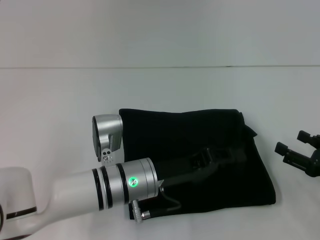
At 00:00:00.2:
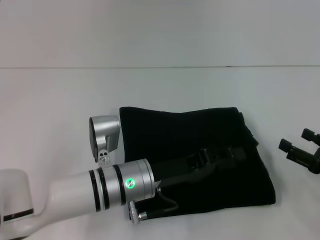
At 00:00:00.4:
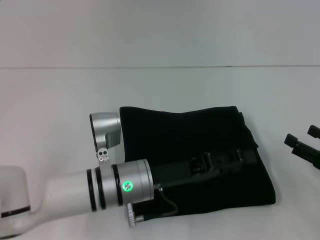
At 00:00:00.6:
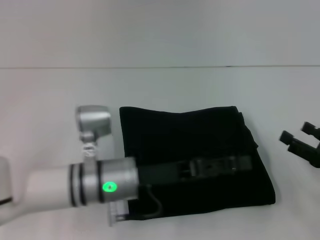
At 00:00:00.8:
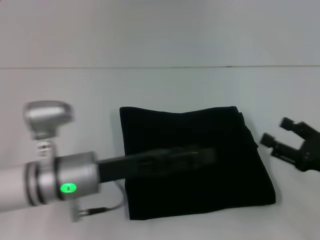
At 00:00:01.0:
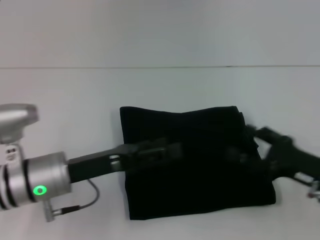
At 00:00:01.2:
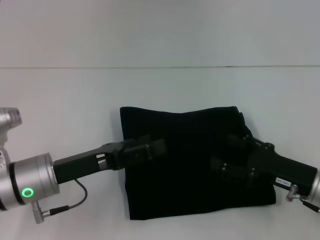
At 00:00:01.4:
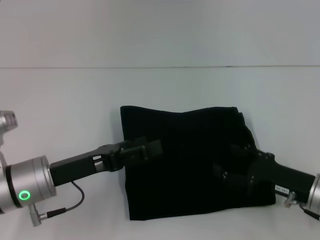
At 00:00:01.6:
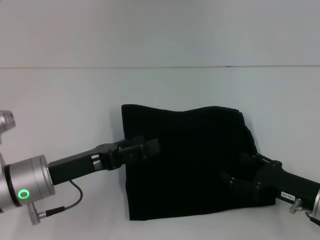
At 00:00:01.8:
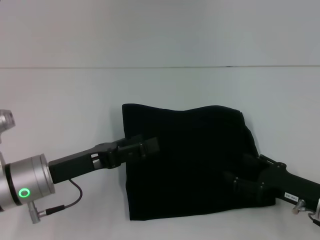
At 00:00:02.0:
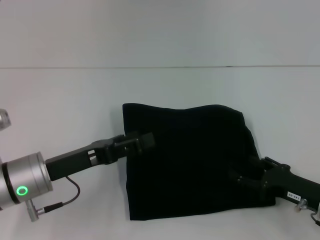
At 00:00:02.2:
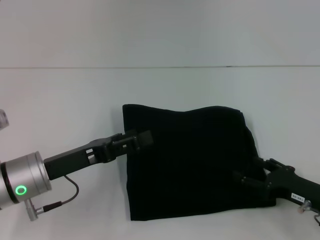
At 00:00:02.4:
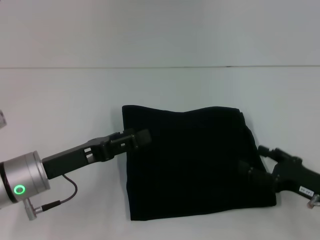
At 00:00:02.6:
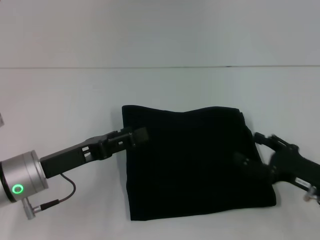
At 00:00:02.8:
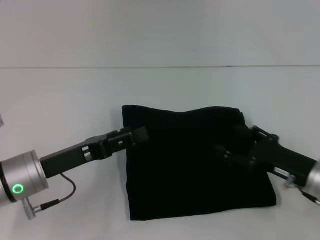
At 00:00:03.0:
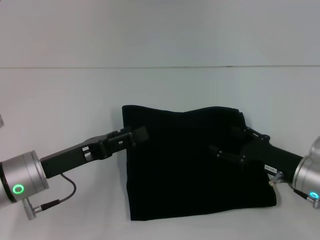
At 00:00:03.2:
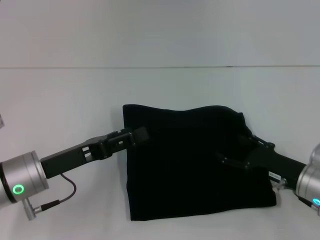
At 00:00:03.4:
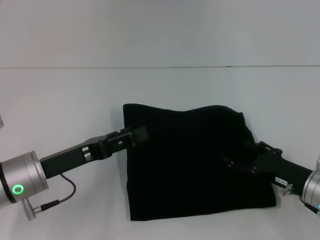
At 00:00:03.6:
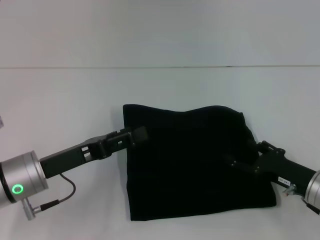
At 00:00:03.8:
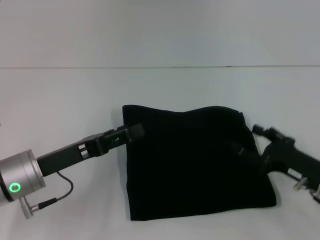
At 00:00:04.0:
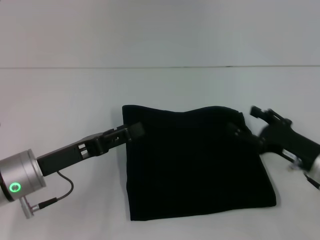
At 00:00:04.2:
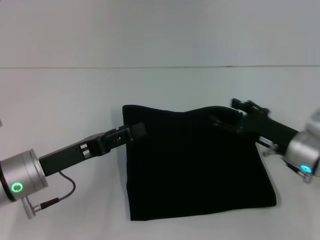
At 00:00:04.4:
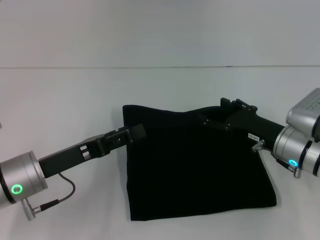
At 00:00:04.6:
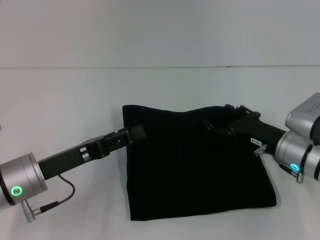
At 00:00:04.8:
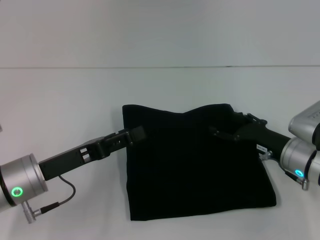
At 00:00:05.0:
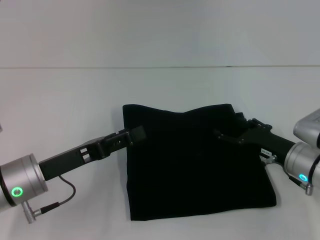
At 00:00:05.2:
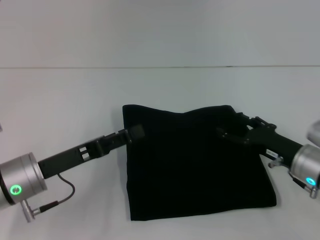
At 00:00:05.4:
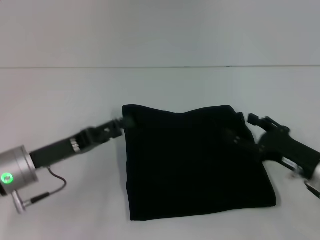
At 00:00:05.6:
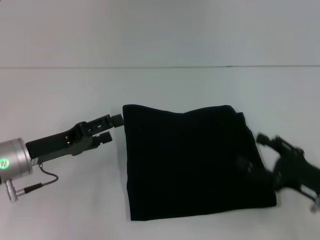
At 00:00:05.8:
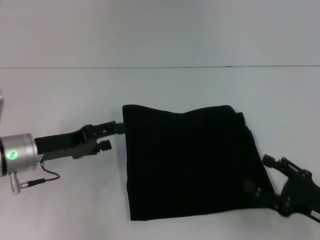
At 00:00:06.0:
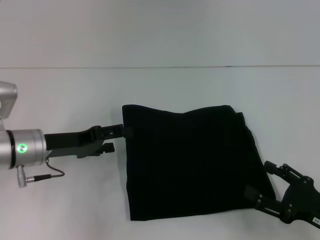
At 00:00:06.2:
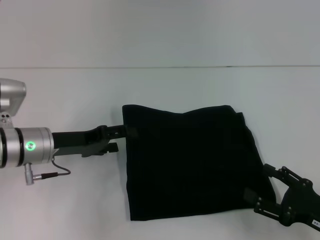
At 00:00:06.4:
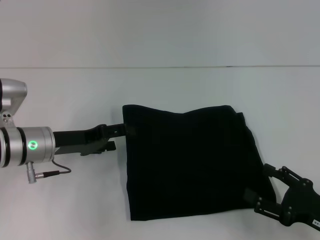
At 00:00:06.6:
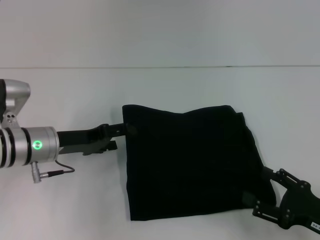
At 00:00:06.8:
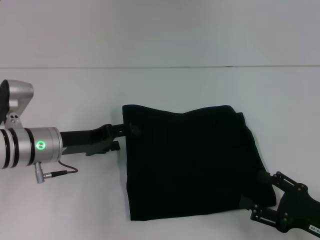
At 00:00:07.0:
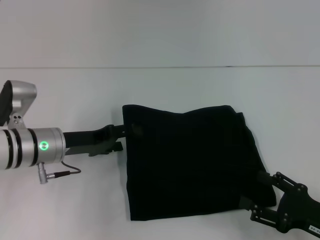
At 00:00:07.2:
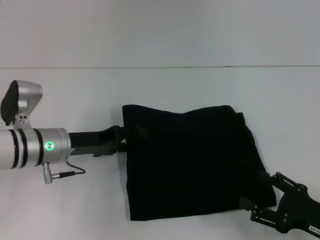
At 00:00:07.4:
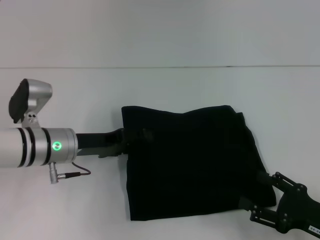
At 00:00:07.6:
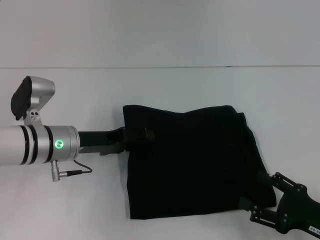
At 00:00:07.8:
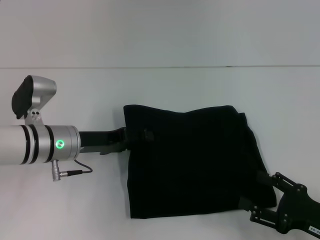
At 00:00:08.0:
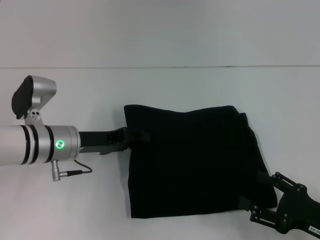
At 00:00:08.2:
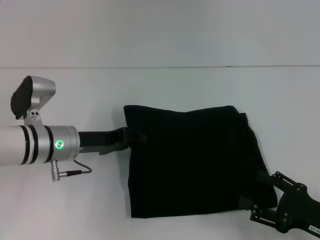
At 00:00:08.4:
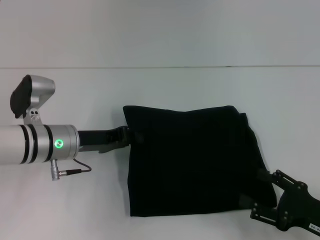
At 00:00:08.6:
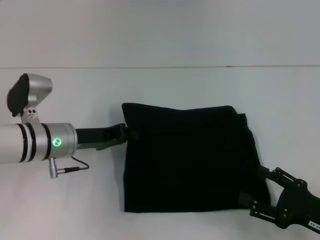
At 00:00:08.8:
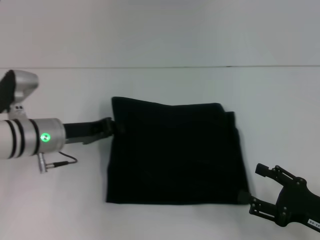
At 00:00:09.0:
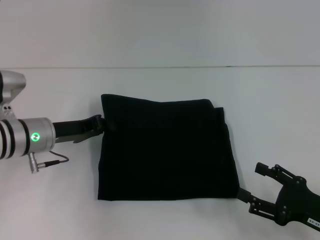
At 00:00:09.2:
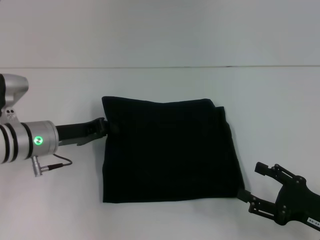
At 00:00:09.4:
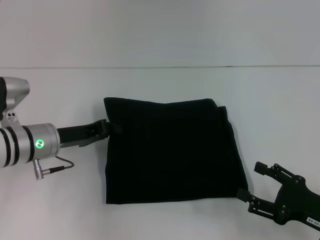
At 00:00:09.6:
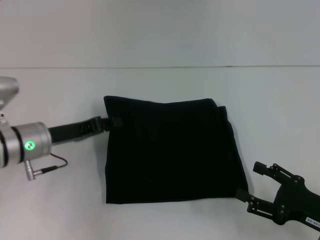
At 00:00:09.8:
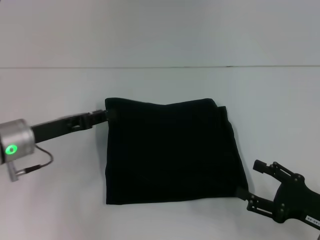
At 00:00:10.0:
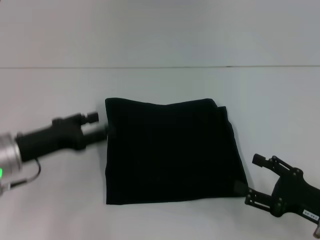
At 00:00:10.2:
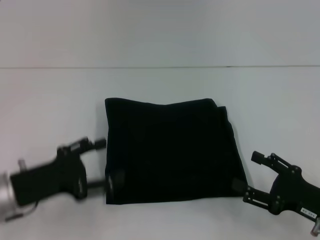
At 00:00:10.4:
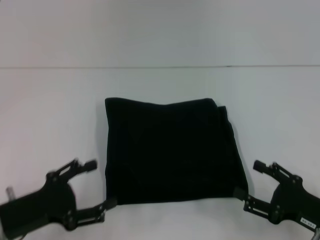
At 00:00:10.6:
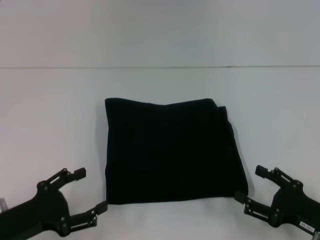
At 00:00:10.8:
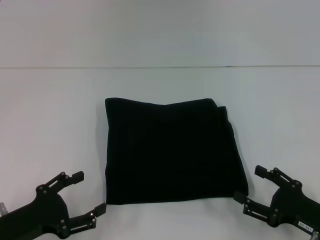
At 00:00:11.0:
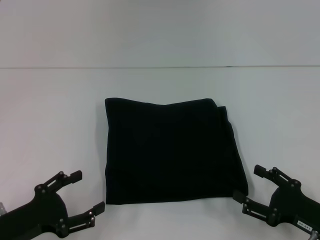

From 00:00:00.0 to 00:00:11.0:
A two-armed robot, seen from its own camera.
From 00:00:00.0 to 00:00:01.6: The left gripper heads to the left, covering some 15 cm, and opens, while the right gripper moves to the left, some 5 cm.
From 00:00:01.6 to 00:00:03.2: The grippers move only a little.
From 00:00:04.8 to 00:00:06.2: The left gripper shifts some 5 cm forward. The right gripper heads backward and to the right, covering about 15 cm.
From 00:00:06.2 to 00:00:07.8: There are only small adjustments of the grippers.
From 00:00:07.8 to 00:00:09.4: The left gripper closes its fingers.
From 00:00:09.4 to 00:00:11.0: The left gripper shifts approximately 15 cm backward, and opens.

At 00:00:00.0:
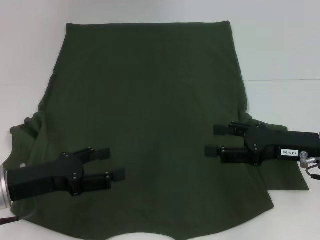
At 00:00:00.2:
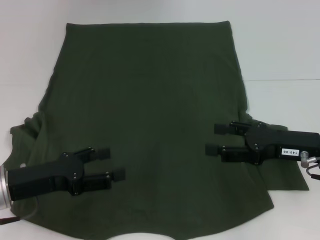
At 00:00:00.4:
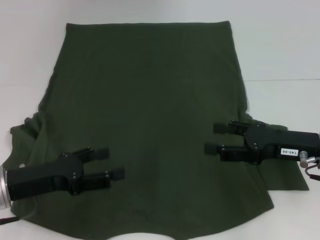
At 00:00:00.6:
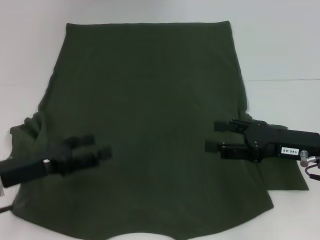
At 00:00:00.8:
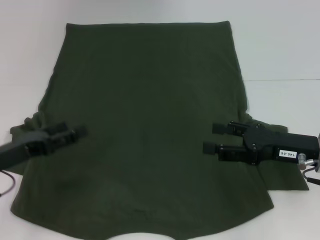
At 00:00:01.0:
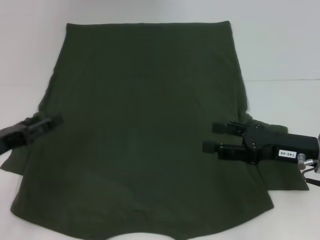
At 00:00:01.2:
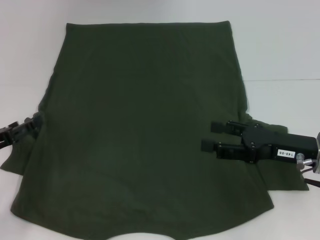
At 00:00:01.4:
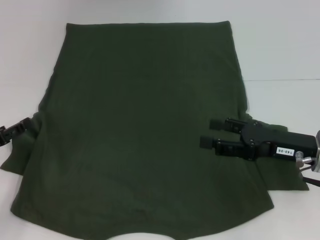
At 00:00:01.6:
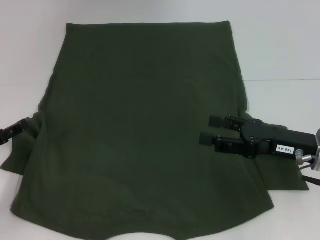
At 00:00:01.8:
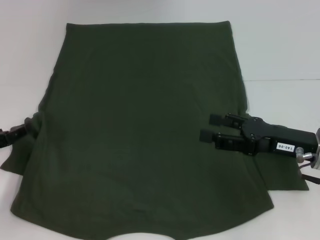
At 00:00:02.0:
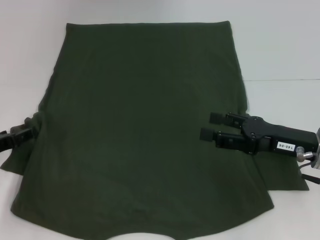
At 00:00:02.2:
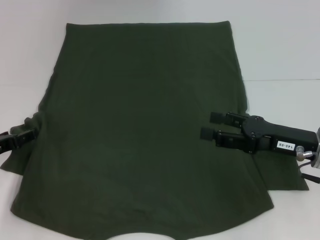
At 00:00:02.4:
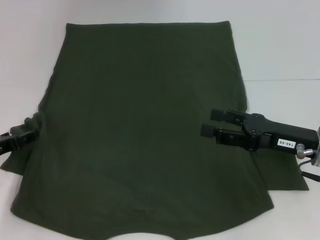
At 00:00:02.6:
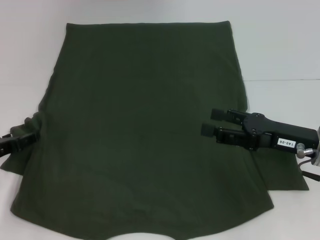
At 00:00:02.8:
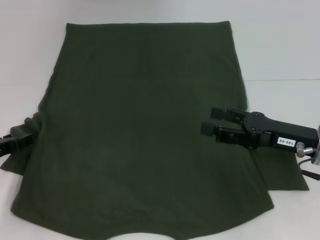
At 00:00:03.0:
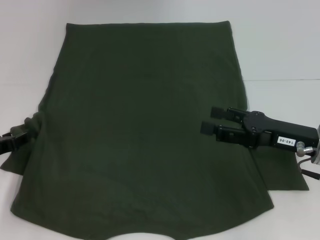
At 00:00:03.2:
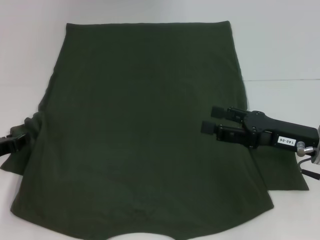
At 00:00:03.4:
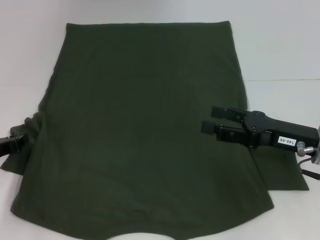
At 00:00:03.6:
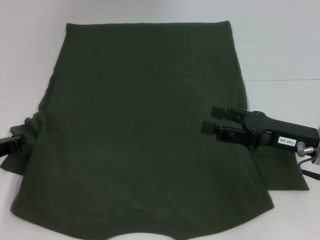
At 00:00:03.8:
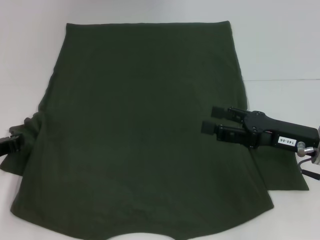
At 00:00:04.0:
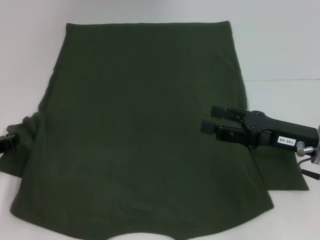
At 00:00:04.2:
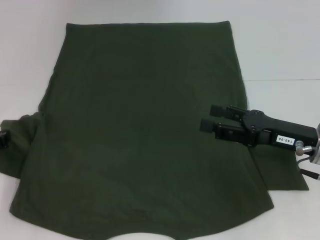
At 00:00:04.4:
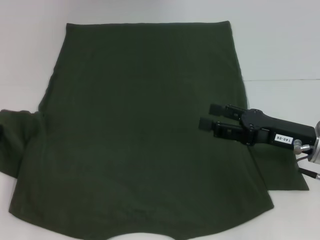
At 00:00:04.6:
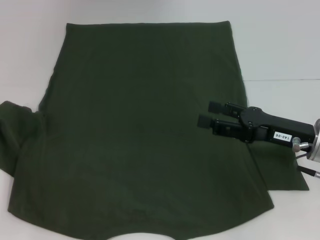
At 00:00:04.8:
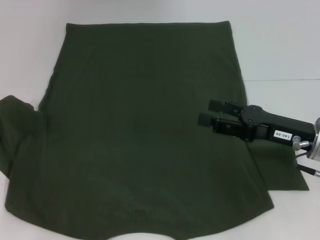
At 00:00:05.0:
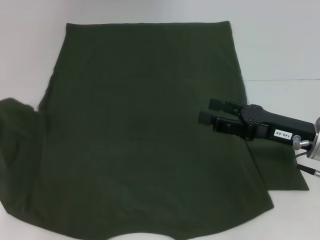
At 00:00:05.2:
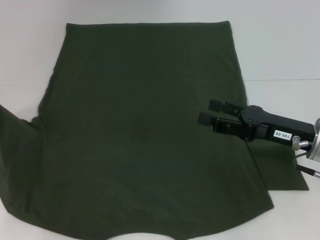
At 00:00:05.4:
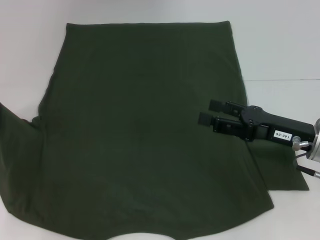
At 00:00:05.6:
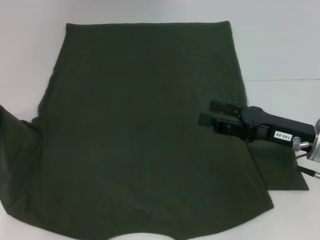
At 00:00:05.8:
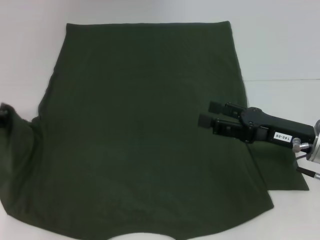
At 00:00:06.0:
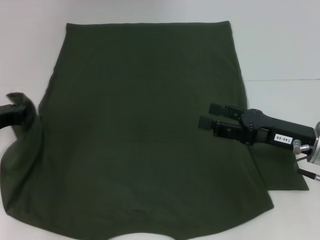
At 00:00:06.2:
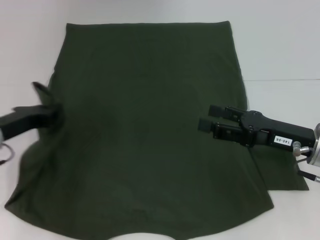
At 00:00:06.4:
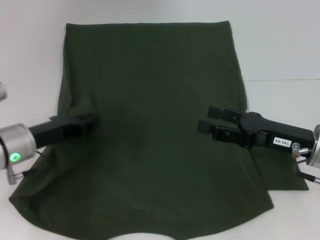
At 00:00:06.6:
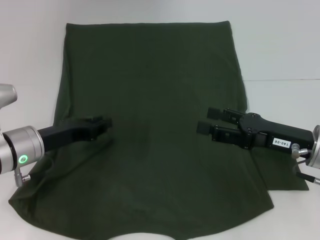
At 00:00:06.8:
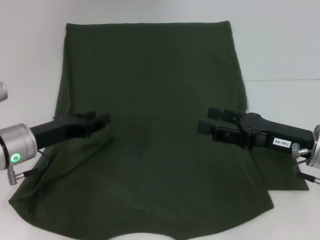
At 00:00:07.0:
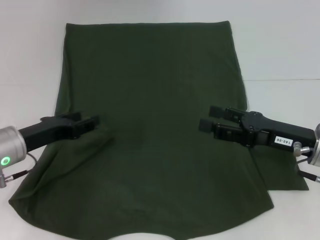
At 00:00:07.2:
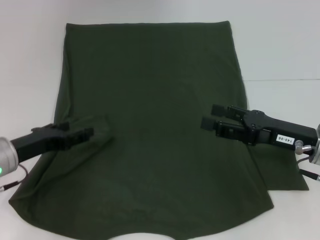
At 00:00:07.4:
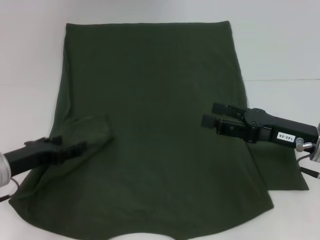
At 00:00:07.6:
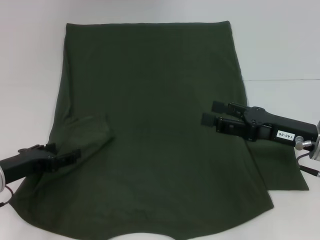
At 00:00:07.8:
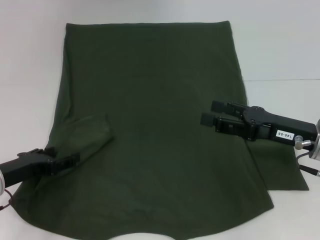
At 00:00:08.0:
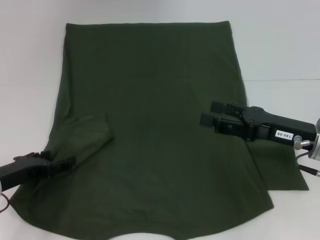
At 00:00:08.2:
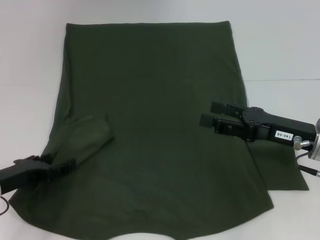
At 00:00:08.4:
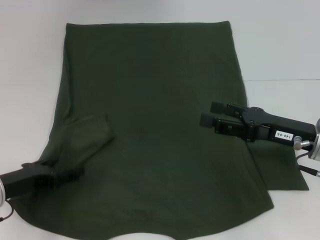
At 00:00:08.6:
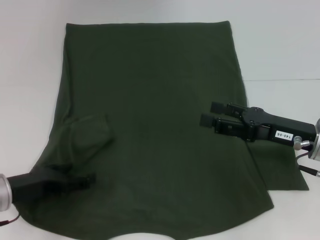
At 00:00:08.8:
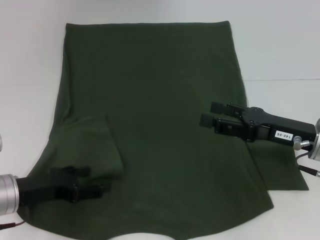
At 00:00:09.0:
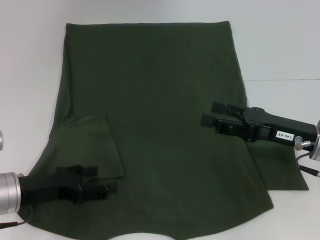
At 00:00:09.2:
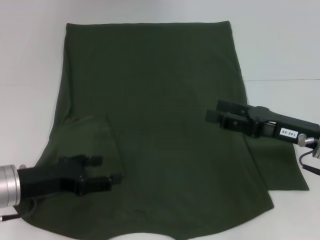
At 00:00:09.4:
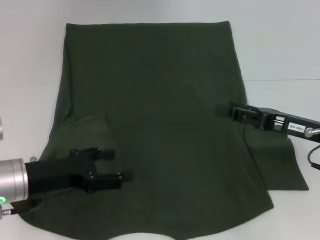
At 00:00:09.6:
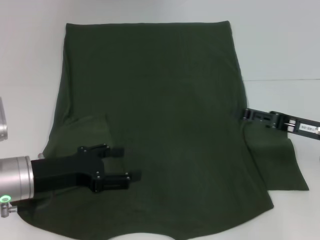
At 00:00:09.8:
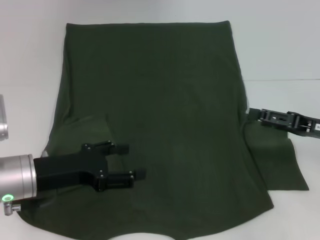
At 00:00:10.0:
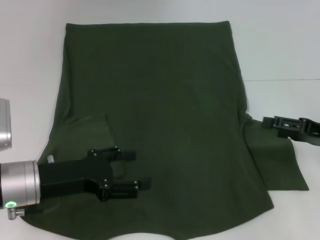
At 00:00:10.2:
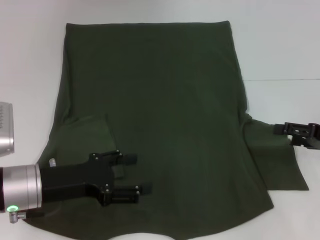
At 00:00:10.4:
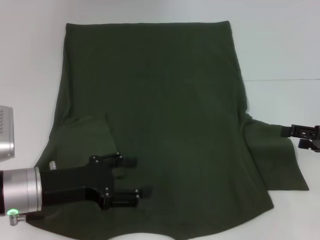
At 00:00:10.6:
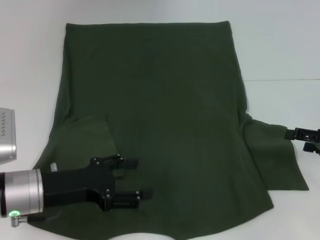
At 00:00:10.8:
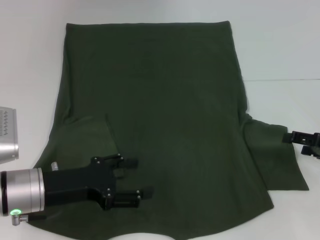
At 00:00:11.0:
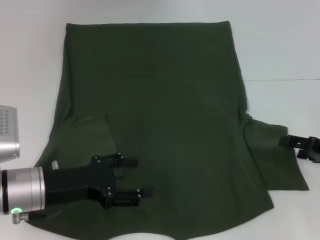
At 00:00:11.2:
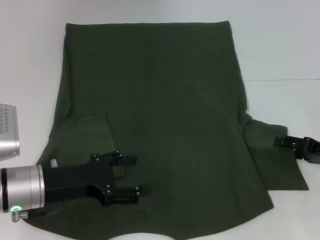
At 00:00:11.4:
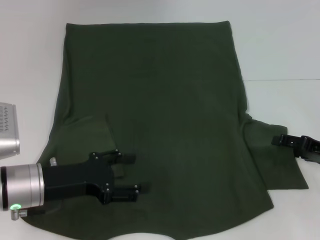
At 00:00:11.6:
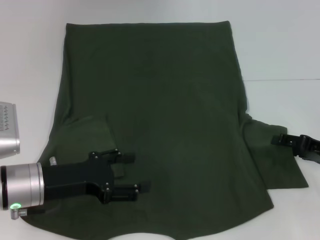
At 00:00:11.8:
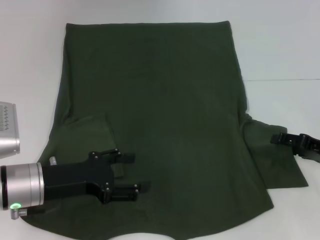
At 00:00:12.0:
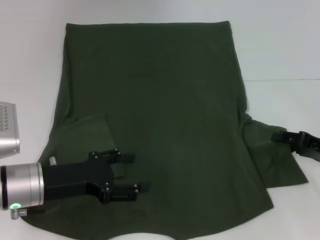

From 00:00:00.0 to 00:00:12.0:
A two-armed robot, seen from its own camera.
Step, from 00:00:00.0 to 00:00:07.4: Fold the bottom left sleeve with your left hand.
From 00:00:00.0 to 00:00:01.6: The left gripper goes about 10 cm to the left.
From 00:00:01.6 to 00:00:03.0: There are only small adjustments of the grippers.
From 00:00:03.0 to 00:00:04.4: The left gripper closes up.
From 00:00:04.4 to 00:00:06.0: The left gripper shifts by about 5 cm.
From 00:00:06.0 to 00:00:07.6: The left gripper moves some 5 cm, and opens up.
From 00:00:09.0 to 00:00:10.4: The right gripper goes roughly 10 cm to the right.
From 00:00:10.4 to 00:00:12.0: The grippers move only a little.
